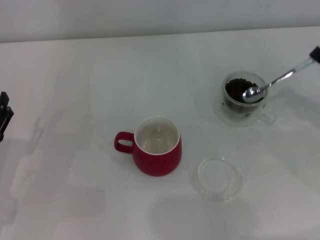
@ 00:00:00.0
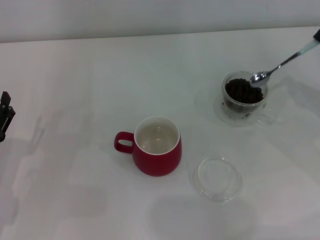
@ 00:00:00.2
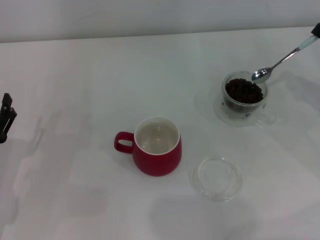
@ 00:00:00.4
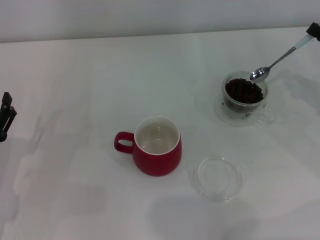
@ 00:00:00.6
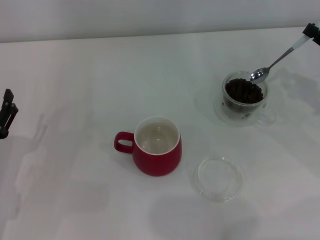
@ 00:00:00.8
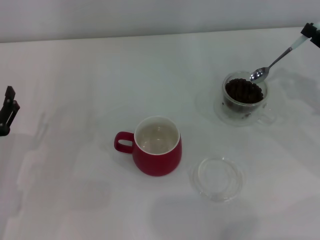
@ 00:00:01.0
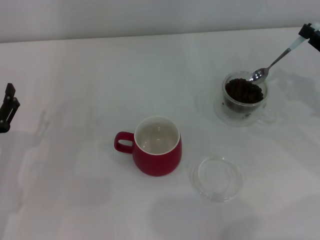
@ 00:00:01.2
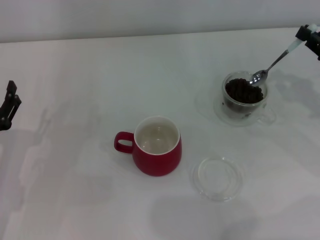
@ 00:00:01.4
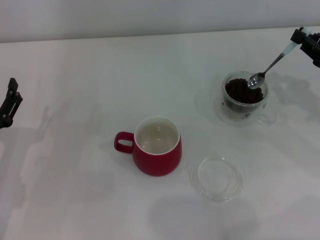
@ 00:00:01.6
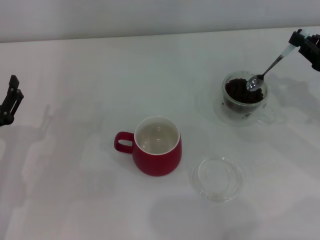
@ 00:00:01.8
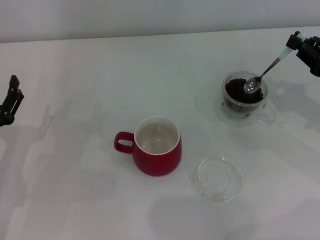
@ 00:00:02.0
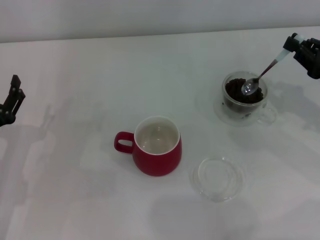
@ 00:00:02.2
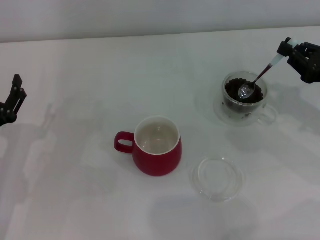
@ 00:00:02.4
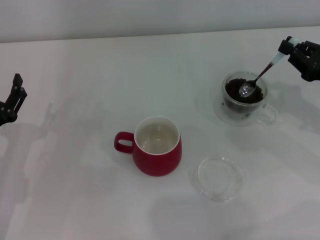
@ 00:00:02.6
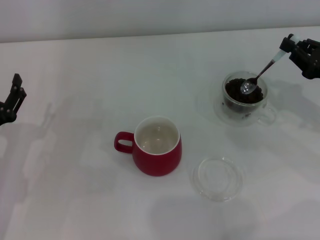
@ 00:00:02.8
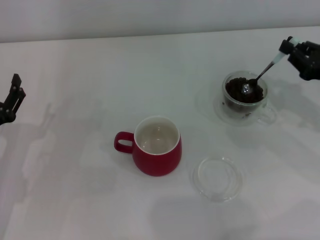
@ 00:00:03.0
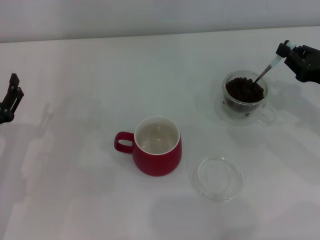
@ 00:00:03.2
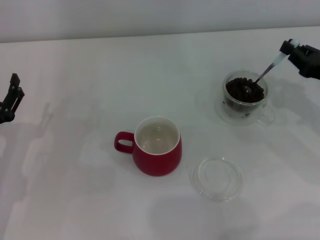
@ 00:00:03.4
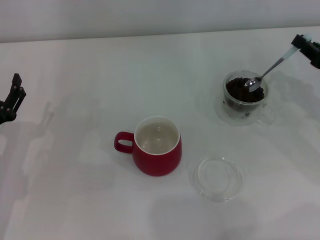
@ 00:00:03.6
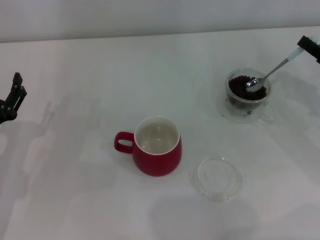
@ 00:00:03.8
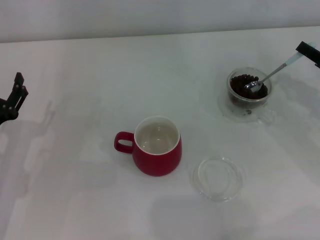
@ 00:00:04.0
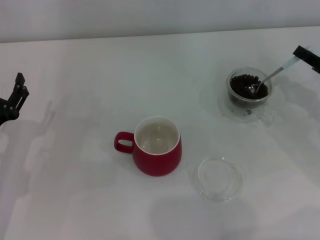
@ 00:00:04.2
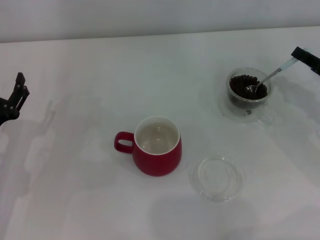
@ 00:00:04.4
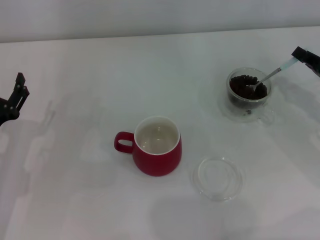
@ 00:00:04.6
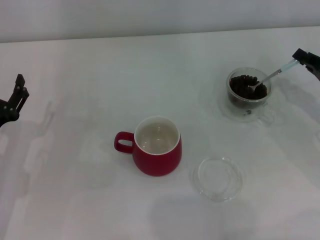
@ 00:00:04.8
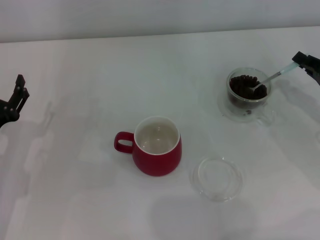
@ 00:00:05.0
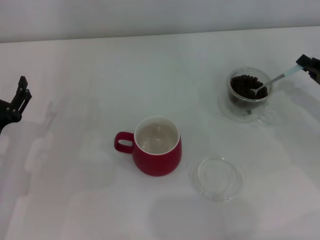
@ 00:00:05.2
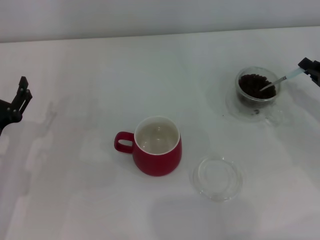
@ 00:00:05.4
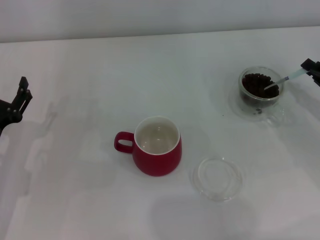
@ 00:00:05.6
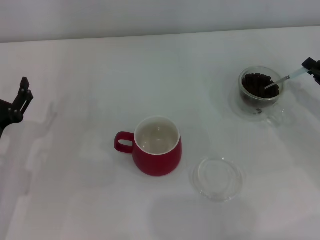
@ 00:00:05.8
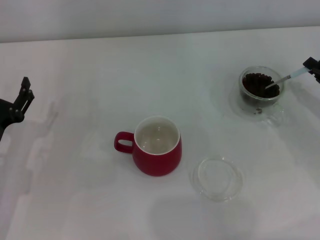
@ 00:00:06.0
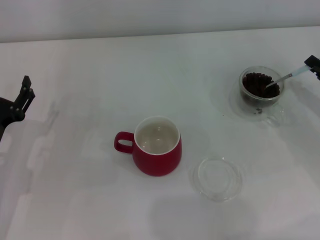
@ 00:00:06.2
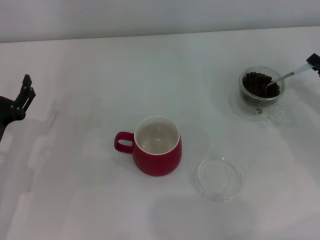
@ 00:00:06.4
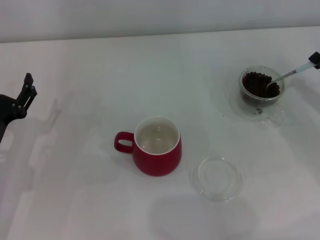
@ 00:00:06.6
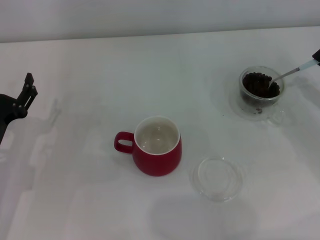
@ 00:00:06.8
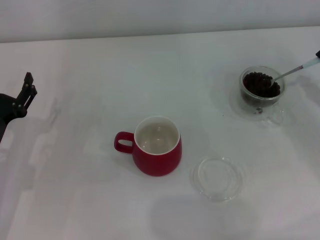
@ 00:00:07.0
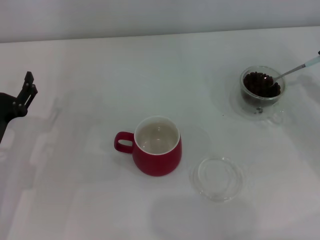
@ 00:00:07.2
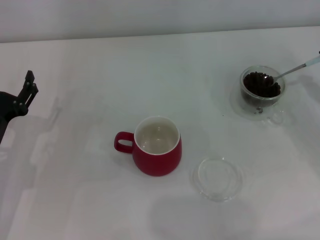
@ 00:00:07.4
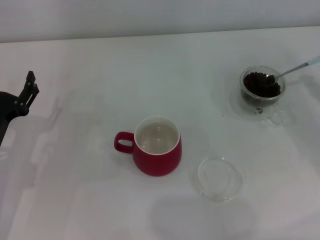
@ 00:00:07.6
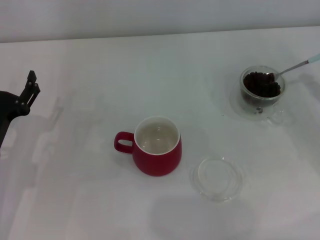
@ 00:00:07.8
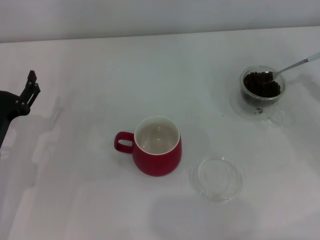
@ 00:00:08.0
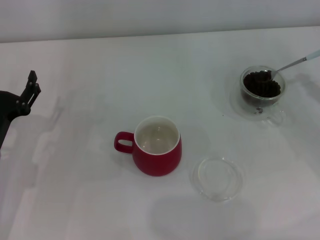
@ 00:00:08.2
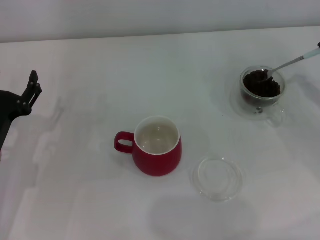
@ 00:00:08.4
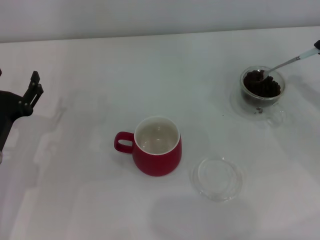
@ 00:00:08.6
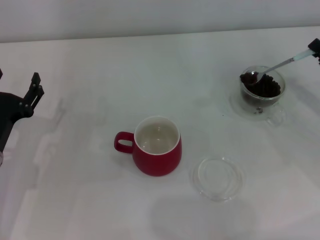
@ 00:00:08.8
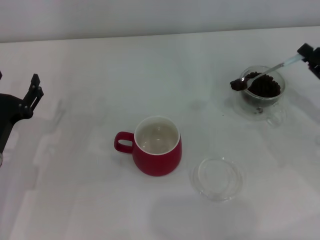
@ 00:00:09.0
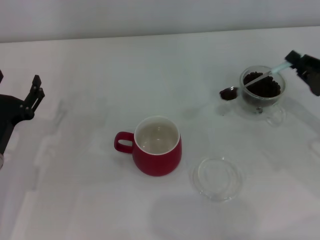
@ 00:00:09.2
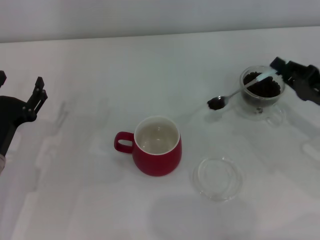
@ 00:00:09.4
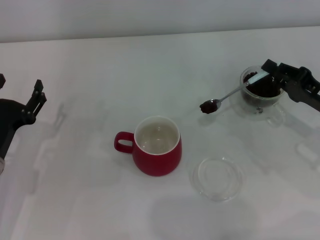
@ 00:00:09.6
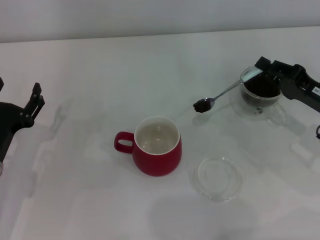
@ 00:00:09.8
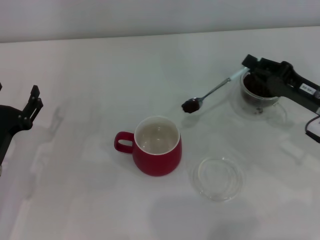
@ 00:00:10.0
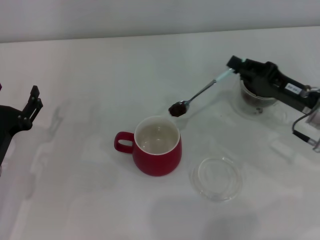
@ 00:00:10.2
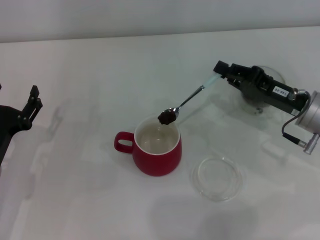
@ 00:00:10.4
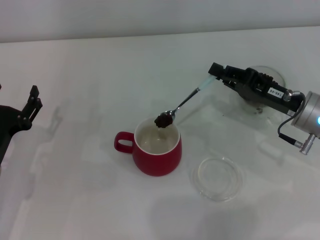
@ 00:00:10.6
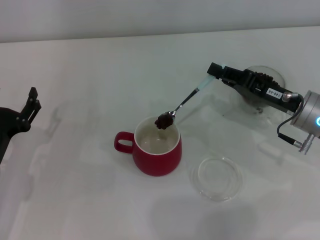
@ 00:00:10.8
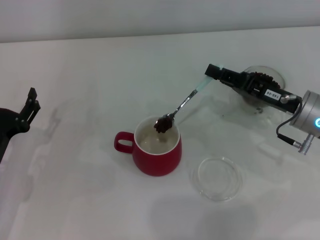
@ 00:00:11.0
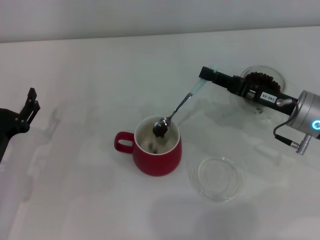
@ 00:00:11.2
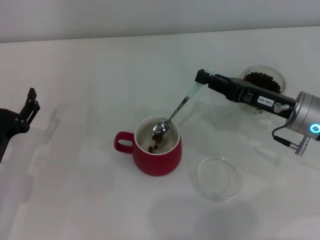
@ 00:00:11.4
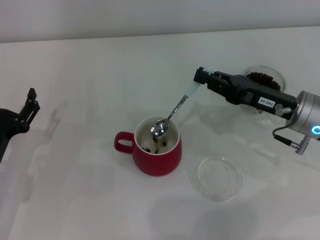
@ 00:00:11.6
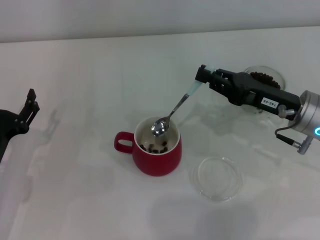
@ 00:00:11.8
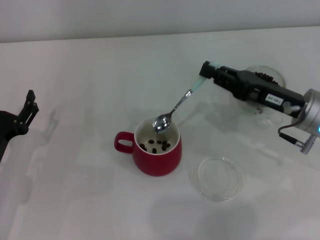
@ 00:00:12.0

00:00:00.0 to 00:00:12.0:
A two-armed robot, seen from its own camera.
Task of the whole recording: Use a blue spoon to take out the coffee beans from the glass and pour them into the red cup.
00:00:00.0 to 00:00:01.6: The right gripper goes roughly 5 cm forward.
00:00:01.6 to 00:00:03.0: The grippers move only a little.
00:00:04.4 to 00:00:07.6: The grippers move only a little.
00:00:07.6 to 00:00:09.0: There are only small adjustments of the grippers.
00:00:09.0 to 00:00:10.4: The right gripper travels to the left by approximately 10 cm.

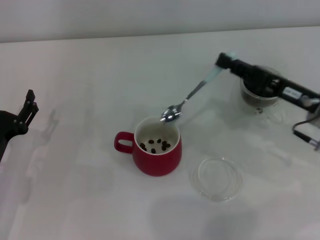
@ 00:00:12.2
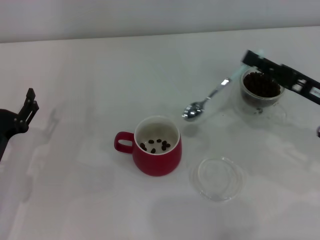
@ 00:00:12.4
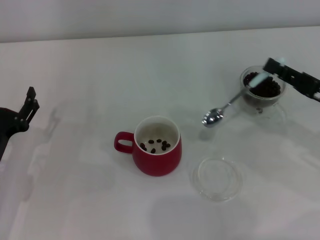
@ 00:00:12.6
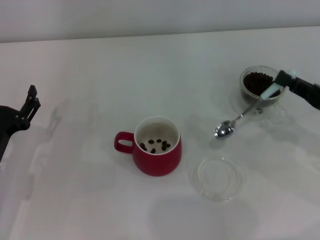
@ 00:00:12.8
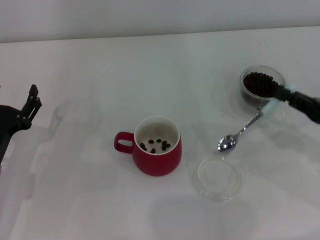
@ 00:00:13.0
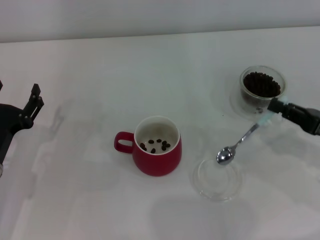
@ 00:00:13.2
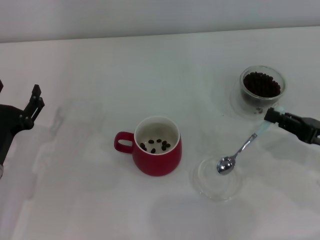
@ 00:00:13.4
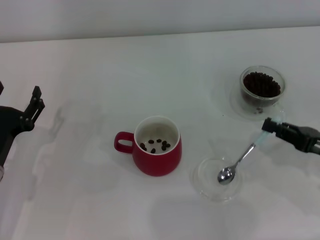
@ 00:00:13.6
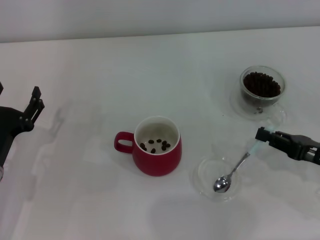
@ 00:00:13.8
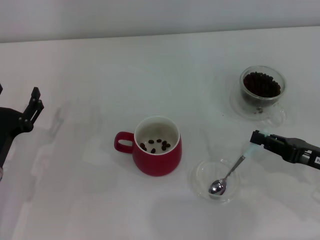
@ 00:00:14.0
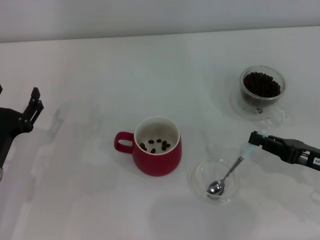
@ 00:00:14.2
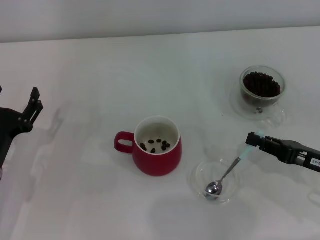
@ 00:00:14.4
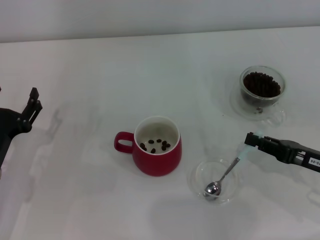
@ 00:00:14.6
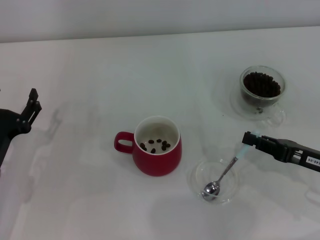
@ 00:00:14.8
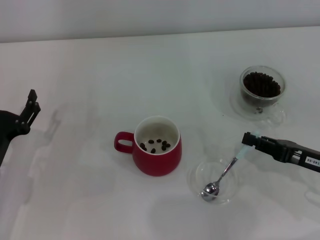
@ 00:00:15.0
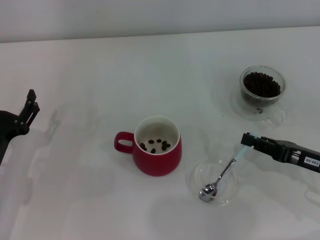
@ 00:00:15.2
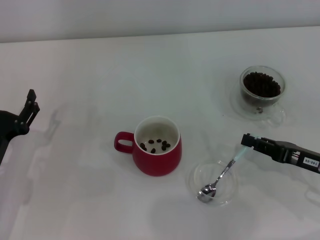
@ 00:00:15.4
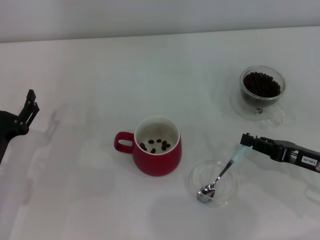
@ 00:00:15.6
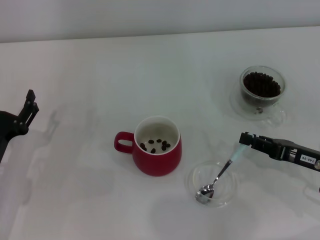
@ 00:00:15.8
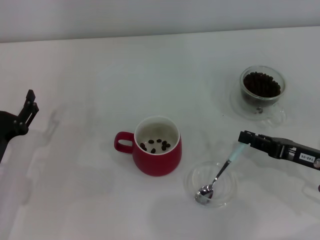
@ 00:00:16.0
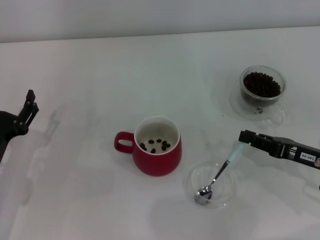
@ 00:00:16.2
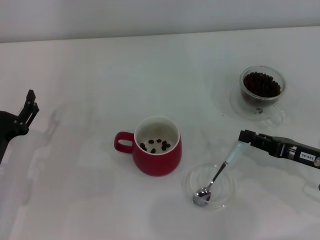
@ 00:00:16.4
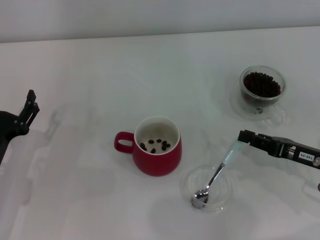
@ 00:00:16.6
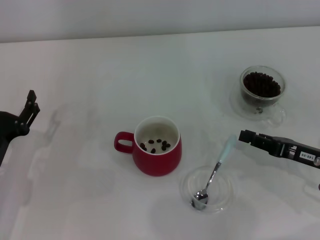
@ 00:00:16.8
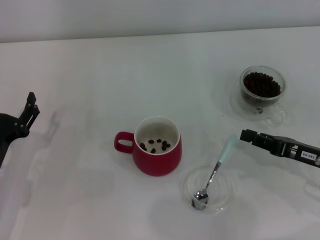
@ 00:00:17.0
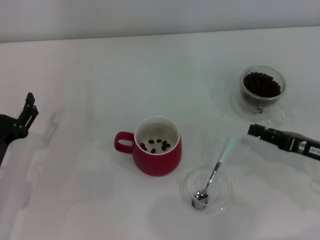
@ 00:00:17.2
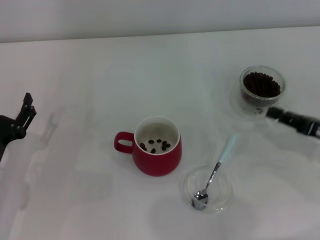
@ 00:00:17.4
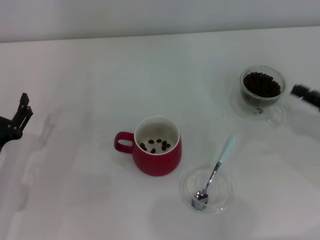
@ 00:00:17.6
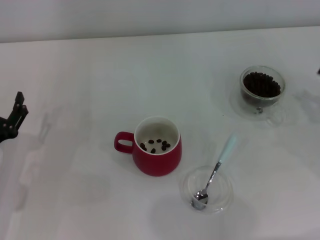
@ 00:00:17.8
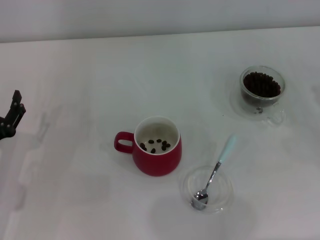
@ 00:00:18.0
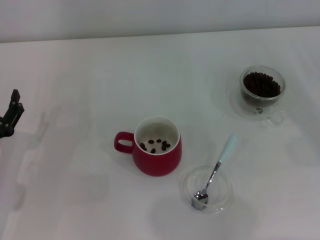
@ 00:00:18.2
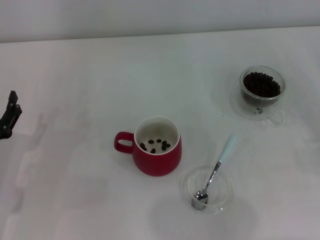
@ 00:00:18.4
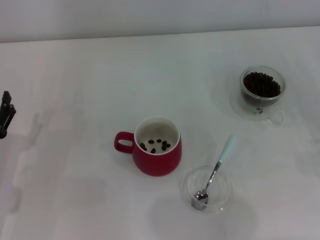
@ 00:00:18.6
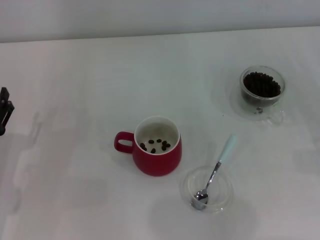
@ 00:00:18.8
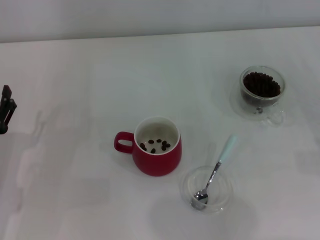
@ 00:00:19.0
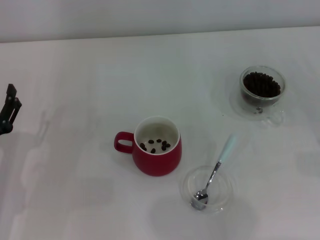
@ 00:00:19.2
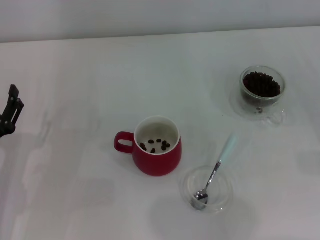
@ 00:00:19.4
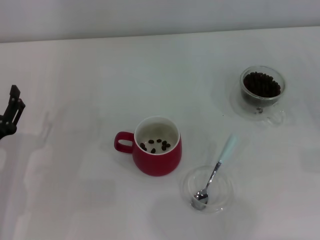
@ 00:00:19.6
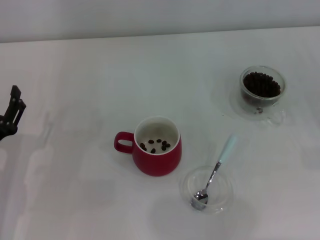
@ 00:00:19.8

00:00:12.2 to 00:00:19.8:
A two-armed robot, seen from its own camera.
Task of the whole recording: Use a blue spoon to take out the coffee beans from the glass and pour them into the red cup.
Step, 00:00:12.2 to 00:00:17.0: Place the spoon back in its original place with the right gripper.
00:00:12.2 to 00:00:13.8: The right gripper goes some 10 cm backward and to the right.
00:00:13.8 to 00:00:15.2: The grippers move only a little.
00:00:15.2 to 00:00:16.8: Both grippers stay put.
00:00:16.8 to 00:00:18.2: The right gripper travels to the right by roughly 10 cm.
